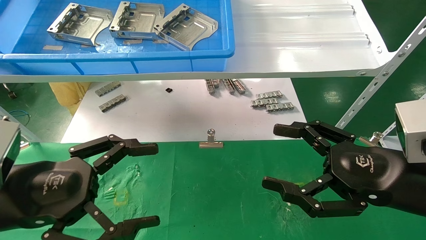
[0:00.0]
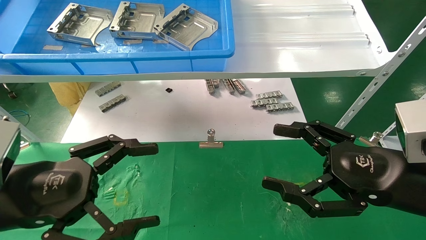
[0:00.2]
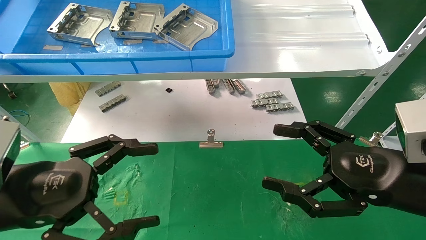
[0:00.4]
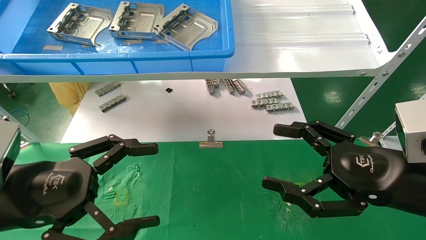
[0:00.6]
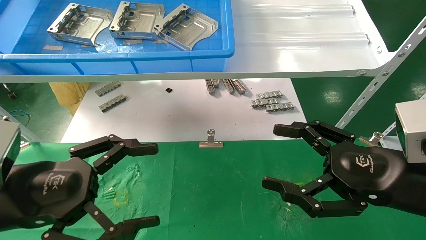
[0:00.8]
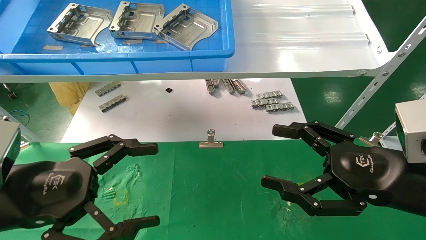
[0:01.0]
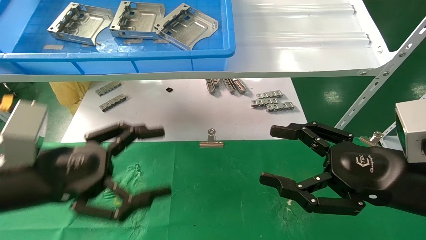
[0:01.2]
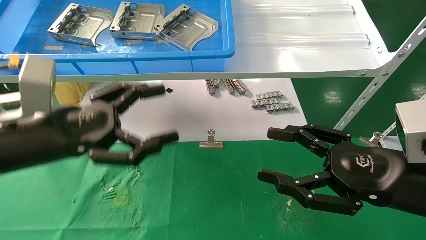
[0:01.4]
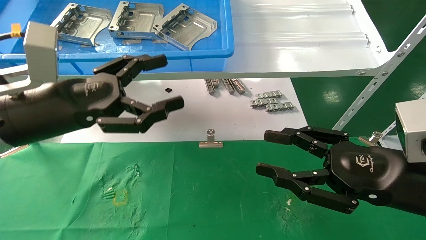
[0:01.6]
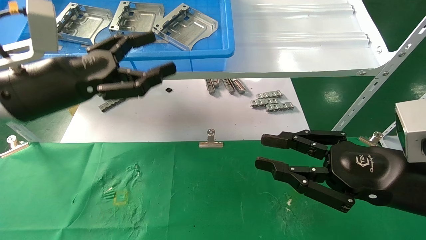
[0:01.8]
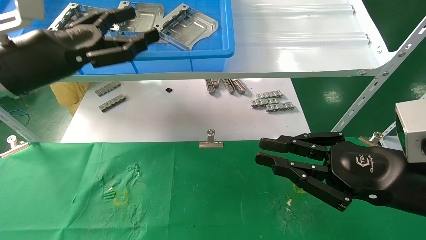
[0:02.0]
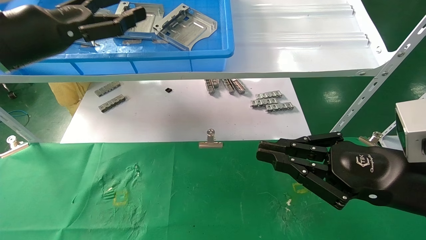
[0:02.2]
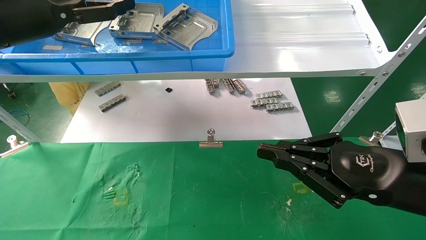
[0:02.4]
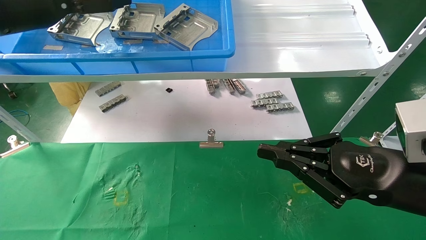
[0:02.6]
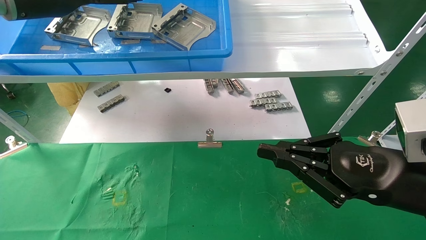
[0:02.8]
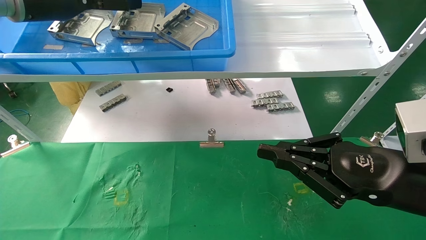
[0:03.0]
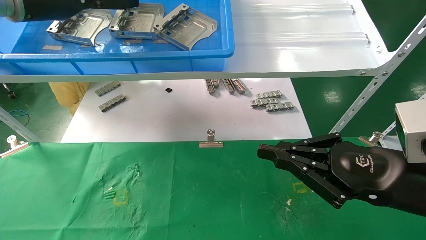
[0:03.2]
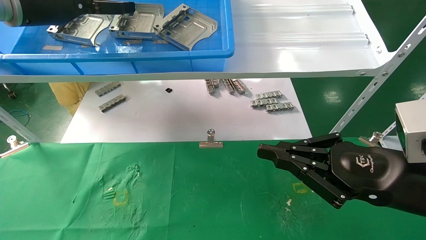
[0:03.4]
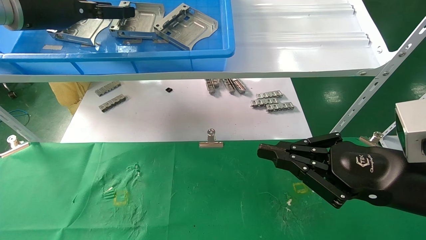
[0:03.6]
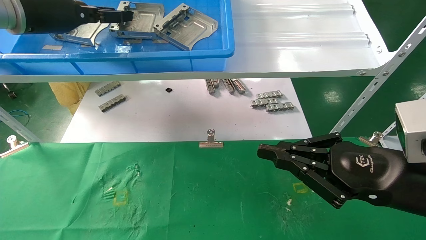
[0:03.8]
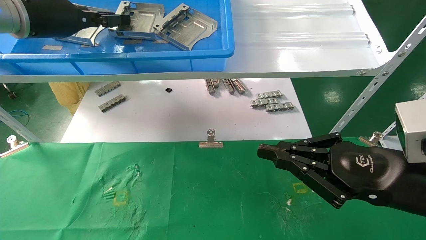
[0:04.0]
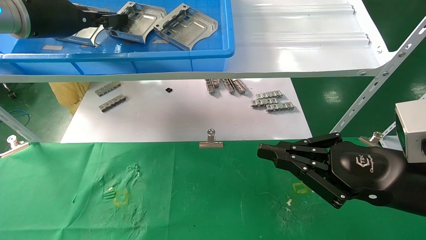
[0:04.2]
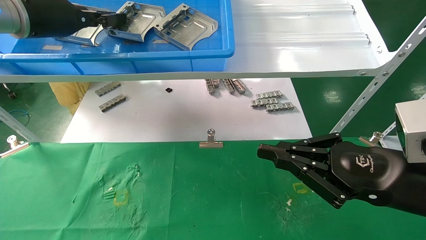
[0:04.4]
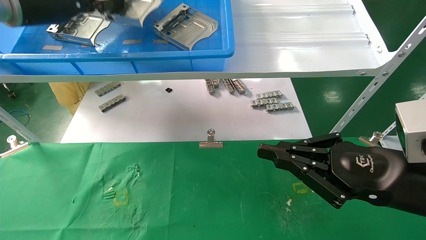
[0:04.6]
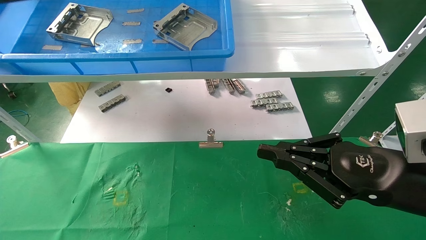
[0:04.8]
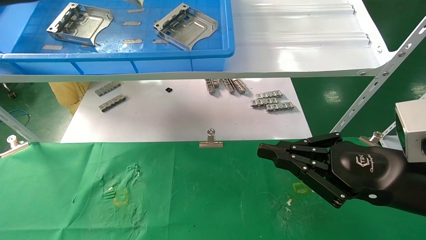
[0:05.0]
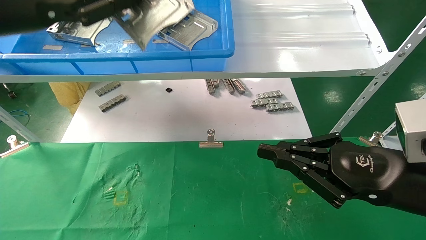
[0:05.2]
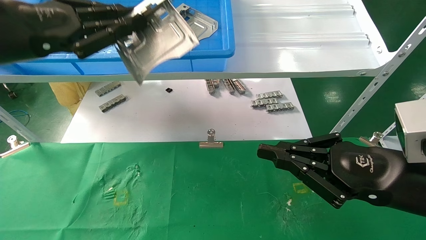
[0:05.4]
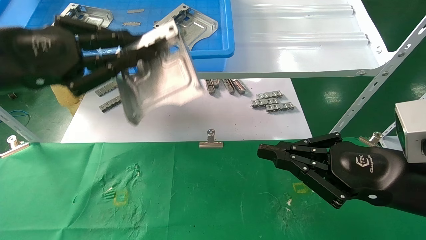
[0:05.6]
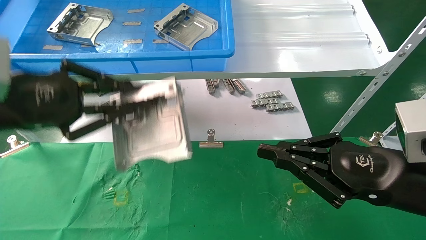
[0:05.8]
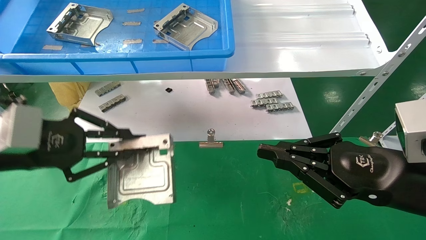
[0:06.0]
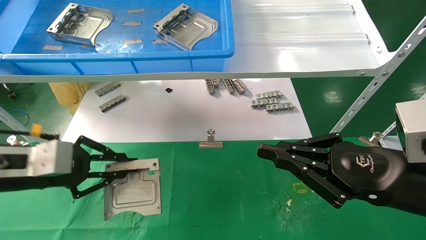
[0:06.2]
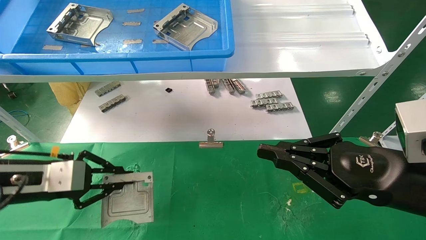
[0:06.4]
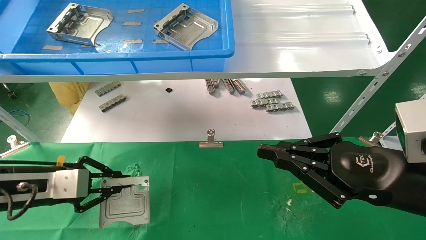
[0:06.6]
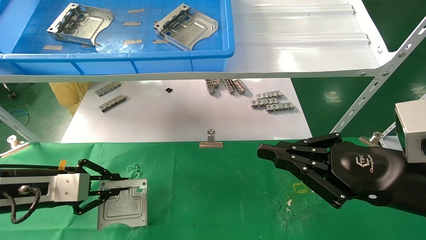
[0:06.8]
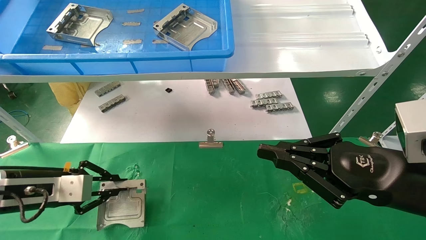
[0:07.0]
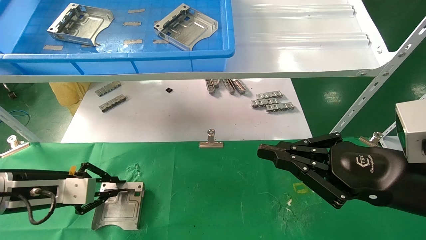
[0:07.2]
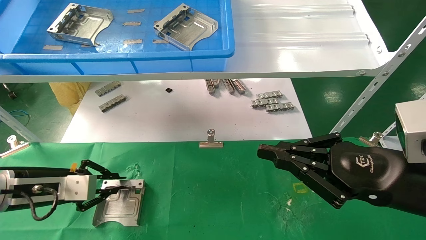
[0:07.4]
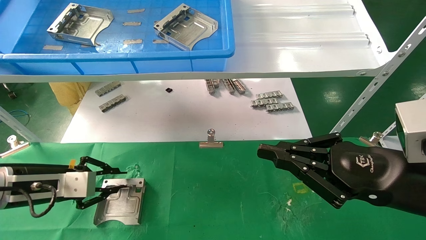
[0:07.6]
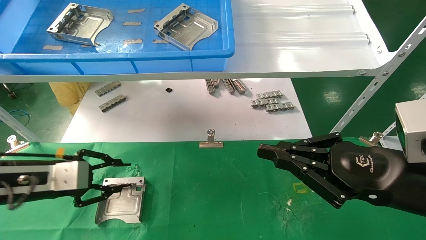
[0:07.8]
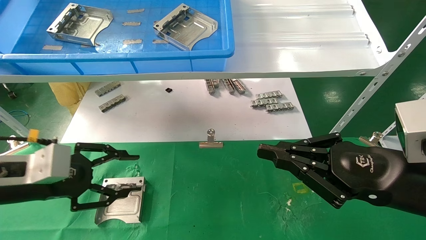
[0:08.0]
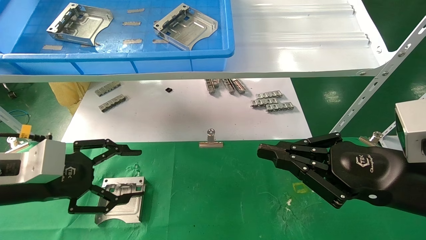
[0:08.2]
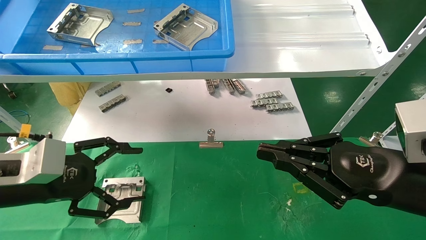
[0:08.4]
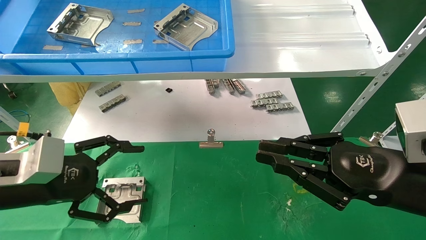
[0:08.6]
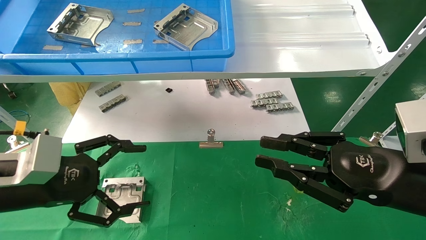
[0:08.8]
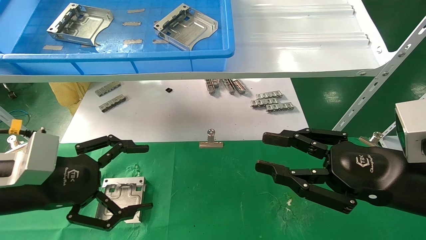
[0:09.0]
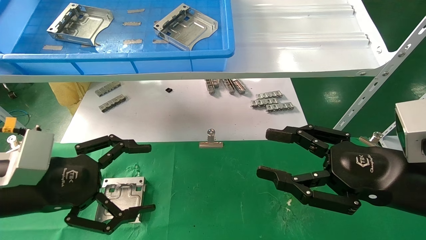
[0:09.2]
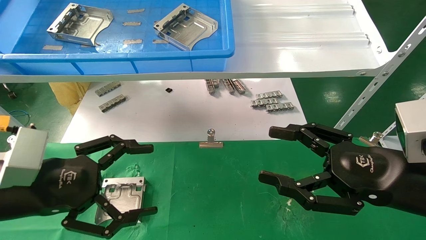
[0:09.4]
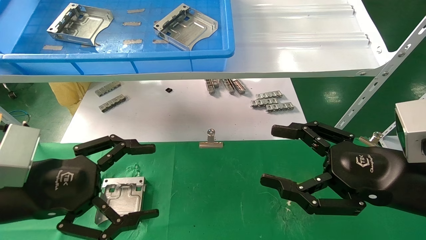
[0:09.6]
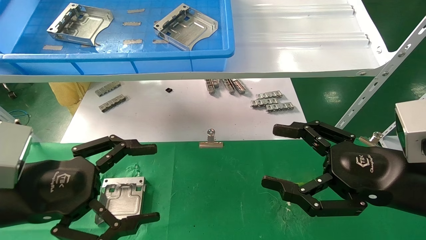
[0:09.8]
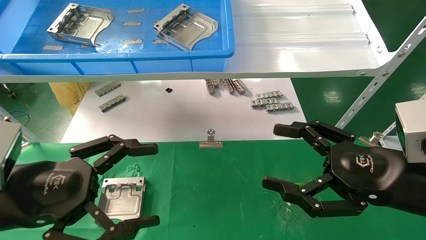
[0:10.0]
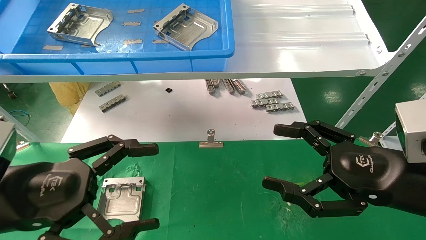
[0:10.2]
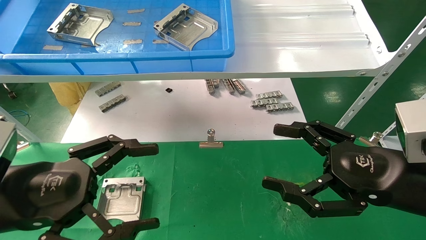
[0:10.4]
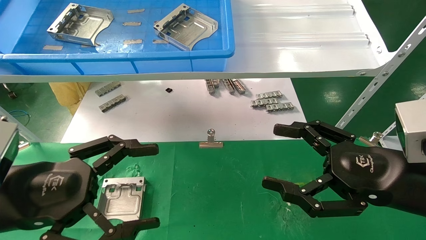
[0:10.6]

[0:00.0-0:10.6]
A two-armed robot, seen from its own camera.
Task of the whole recording: use the mechanical arm to pick up the parts and place them on the table.
Step, 0:01.6 to 0:04.2: Pick up the hard drive bracket from the feeding area.
Step, 0:04.4 to 0:07.6: Place the hard drive bracket into the box.
0:00.0 to 0:01.6: The left gripper is displaced forward and upward by some 10 cm.
0:01.6 to 0:03.0: The left gripper shifts approximately 20 cm upward and forward. Meanwhile the right gripper closes its fingers.
0:03.0 to 0:04.6: The left gripper closes.
0:04.6 to 0:06.0: The left gripper goes approximately 20 cm downward and backward.
0:06.0 to 0:07.6: The left gripper goes approximately 10 cm downward and forward.
0:07.6 to 0:09.0: The left gripper goes roughly 10 cm backward, and opens.
0:09.0 to 0:10.6: The right gripper opens up.
